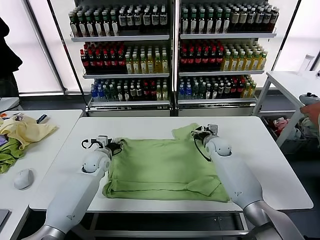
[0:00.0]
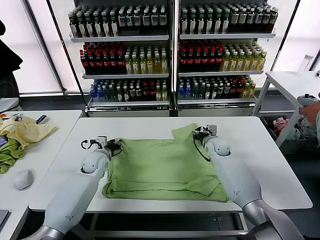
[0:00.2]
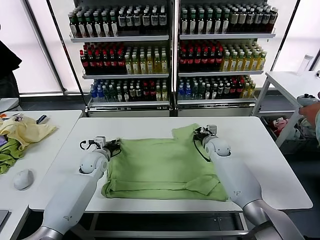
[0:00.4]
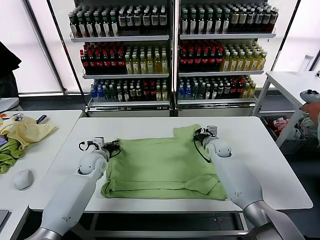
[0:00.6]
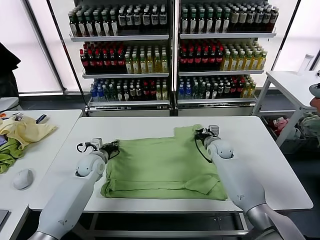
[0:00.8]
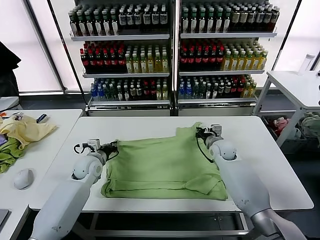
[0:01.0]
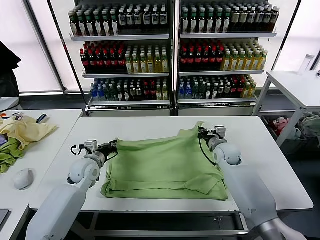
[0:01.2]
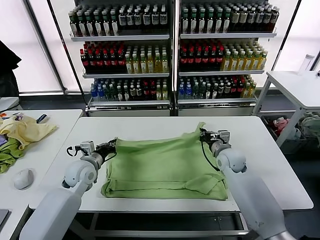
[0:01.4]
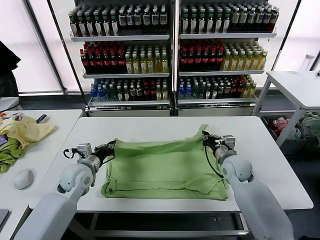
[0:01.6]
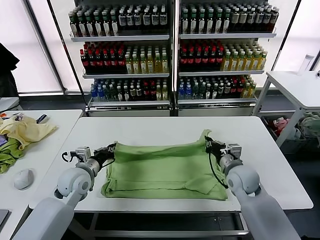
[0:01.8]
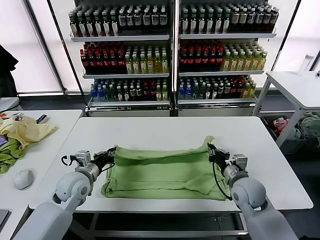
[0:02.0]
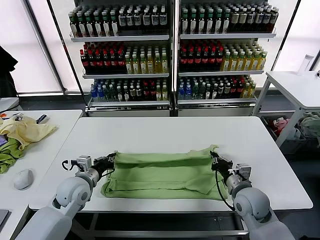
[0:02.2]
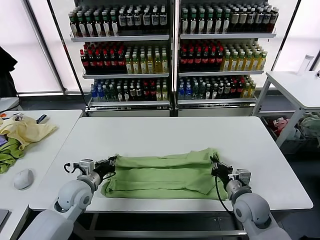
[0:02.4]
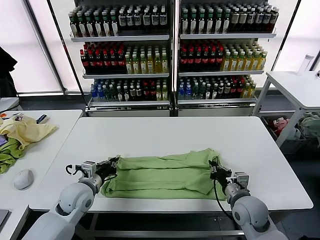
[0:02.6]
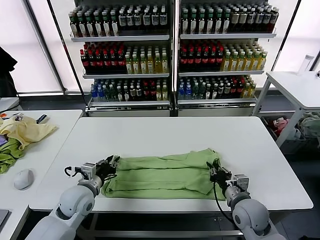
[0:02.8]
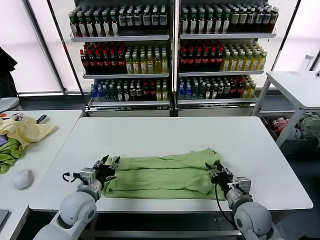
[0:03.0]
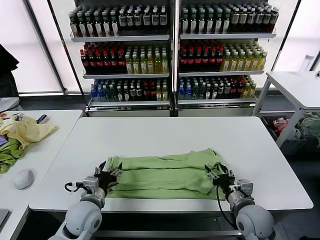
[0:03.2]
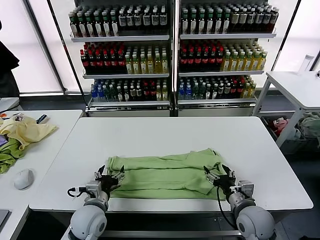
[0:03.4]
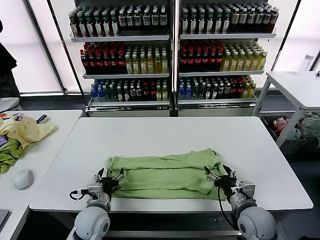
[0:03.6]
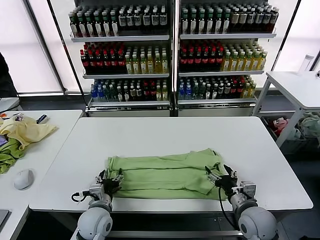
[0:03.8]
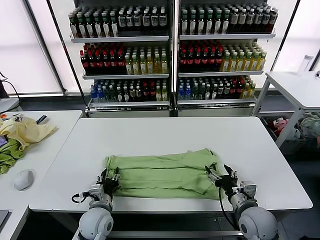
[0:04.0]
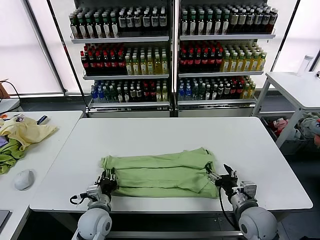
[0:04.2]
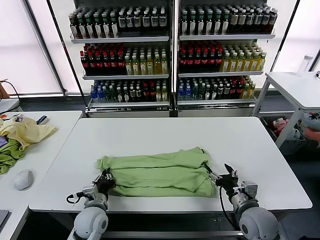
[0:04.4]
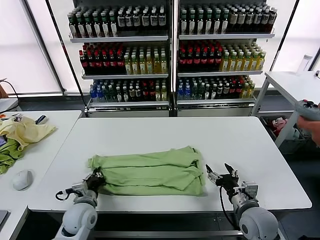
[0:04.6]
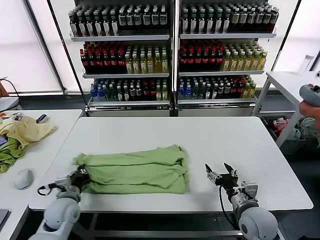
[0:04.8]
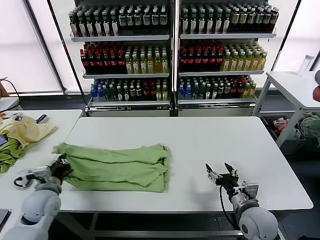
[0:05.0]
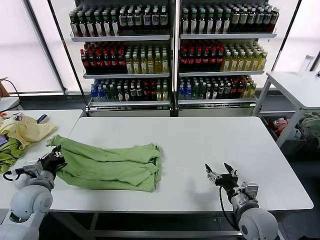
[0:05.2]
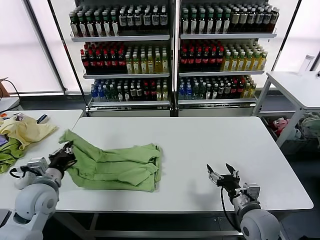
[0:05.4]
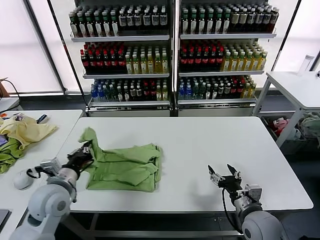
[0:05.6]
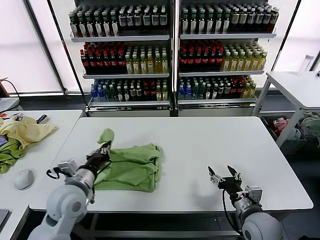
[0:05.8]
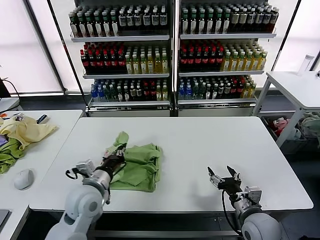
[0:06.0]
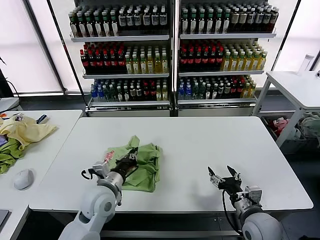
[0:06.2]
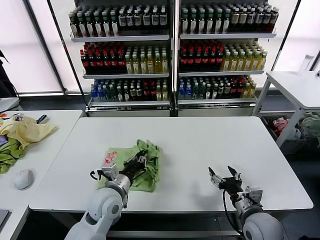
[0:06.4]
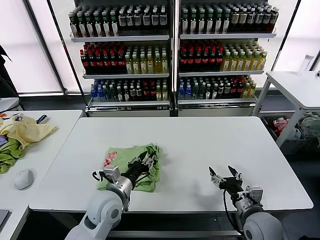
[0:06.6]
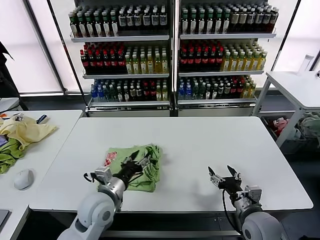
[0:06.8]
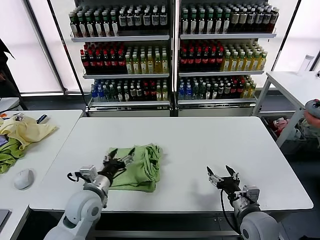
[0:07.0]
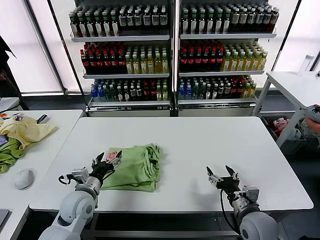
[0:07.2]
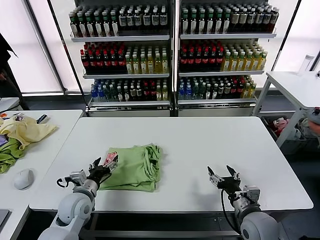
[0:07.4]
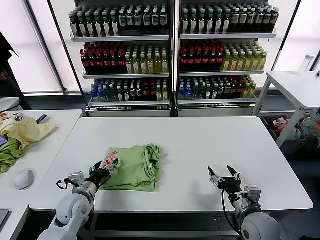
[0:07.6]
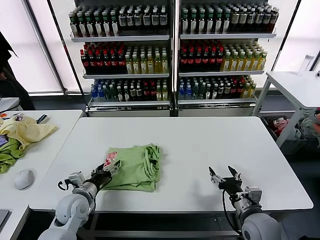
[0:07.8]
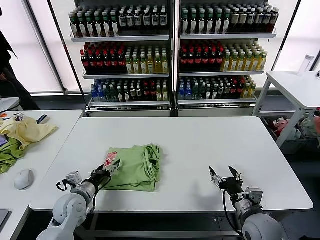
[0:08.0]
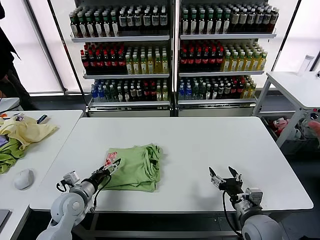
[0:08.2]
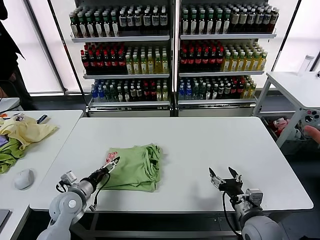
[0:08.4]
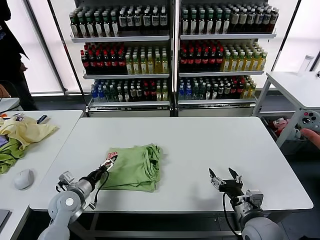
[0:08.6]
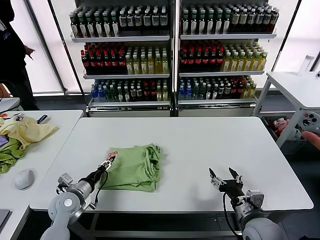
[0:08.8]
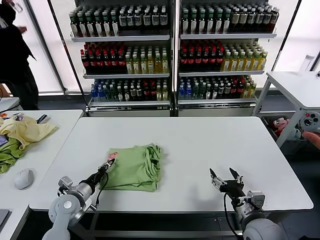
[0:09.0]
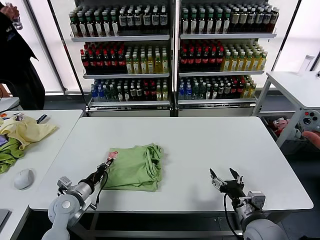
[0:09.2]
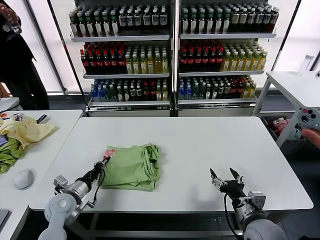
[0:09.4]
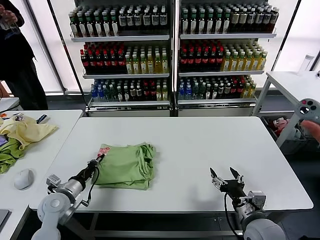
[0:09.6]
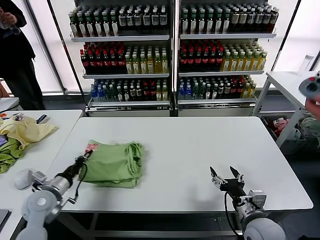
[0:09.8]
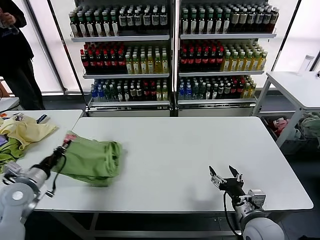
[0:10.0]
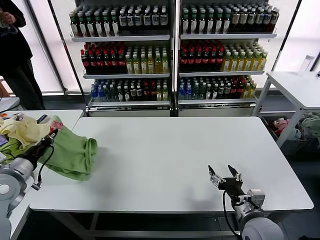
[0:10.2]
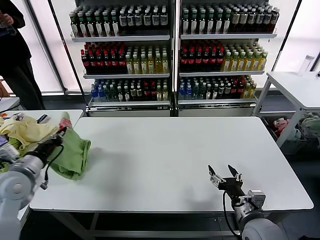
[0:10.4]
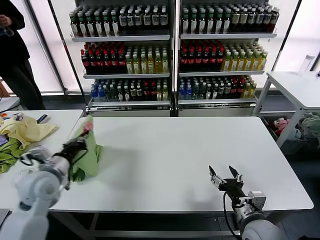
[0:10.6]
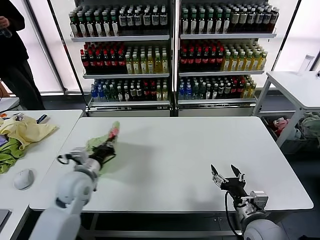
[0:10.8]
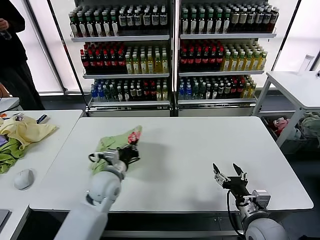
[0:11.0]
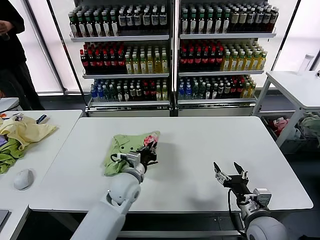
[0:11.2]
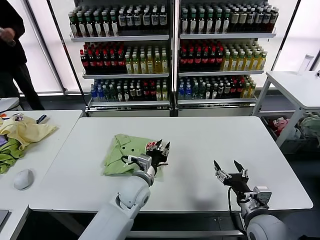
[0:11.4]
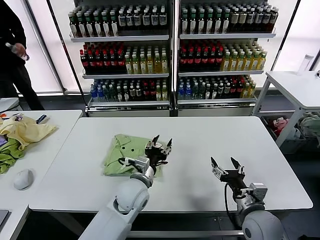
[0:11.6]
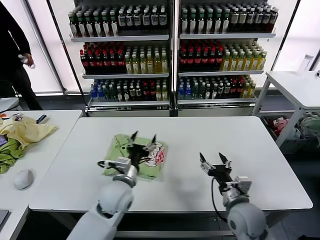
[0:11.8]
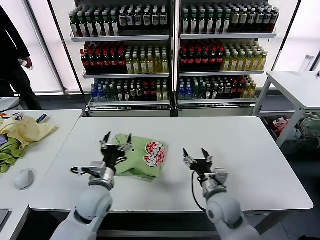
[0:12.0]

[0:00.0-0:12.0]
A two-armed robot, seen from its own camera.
Task of the whole recording: fold and organize the clothes.
Step, 0:00.6 to 0:02.8: use both grippers to drag the upper edge of the fabric backward and fold it over the lower edge.
Step, 0:03.0 to 0:04.2: use the left gripper to clamp the left edge of the fabric.
Step, 0:04.4 to 0:06.6: use the left gripper to drag the left edge of the fabric to the left and folds it over the right edge.
Step, 0:06.8 to 0:11.2: Flip the folded clothes over with left gripper.
0:00.0 to 0:01.6: The left gripper moves backward and upward, about 10 cm, and closes up. The right gripper goes about 15 cm backward, and closes its fingers.
0:01.6 to 0:03.0: The right gripper is displaced backward by approximately 15 cm, and opens its fingers. Meanwhile the left gripper travels backward by some 10 cm, and opens up.
0:03.0 to 0:04.4: The right gripper opens up. Meanwhile the left gripper travels downward by some 5 cm, and closes.
0:04.4 to 0:06.0: The left gripper is displaced upward by some 10 cm, and moves roughly 15 cm to the left and comes back.
0:06.0 to 0:07.6: The left gripper heads downward and to the left, covering some 10 cm, and opens.
0:07.6 to 0:09.0: The left gripper closes.
0:09.0 to 0:10.4: The left gripper moves upward and to the left, some 20 cm, and closes its fingers.
0:10.4 to 0:12.0: The left gripper shifts roughly 25 cm to the right, and opens its fingers. Meanwhile the right gripper goes about 10 cm to the left and forward.

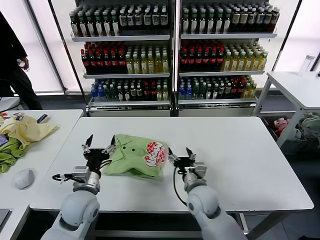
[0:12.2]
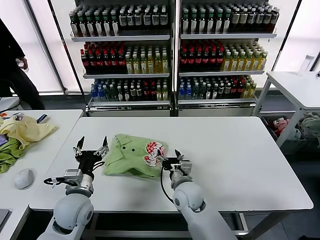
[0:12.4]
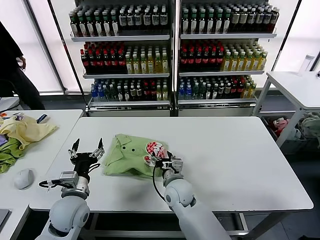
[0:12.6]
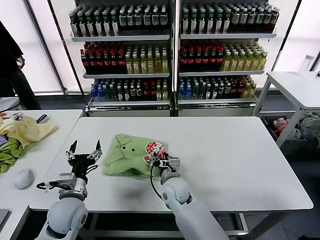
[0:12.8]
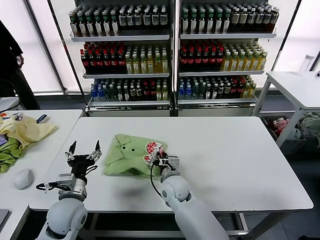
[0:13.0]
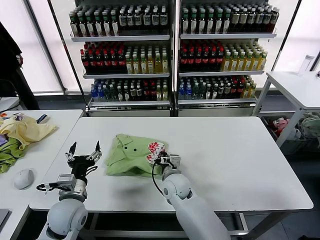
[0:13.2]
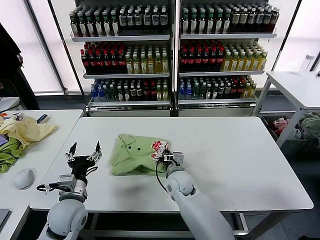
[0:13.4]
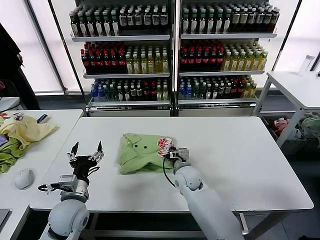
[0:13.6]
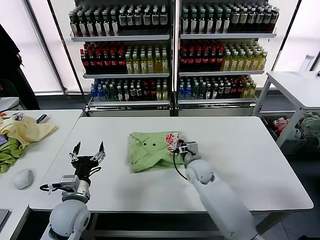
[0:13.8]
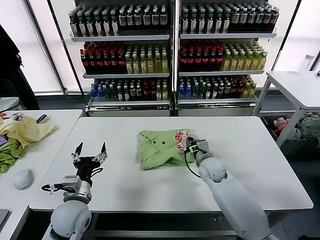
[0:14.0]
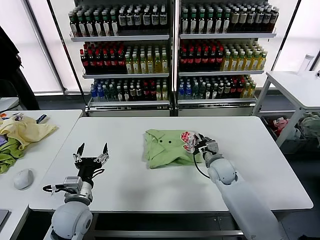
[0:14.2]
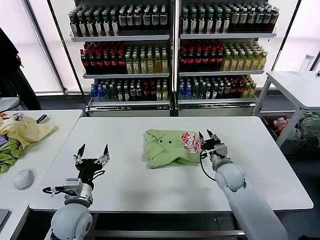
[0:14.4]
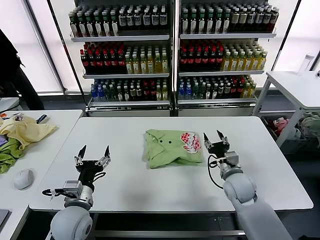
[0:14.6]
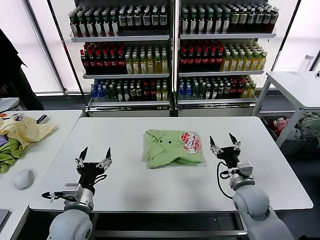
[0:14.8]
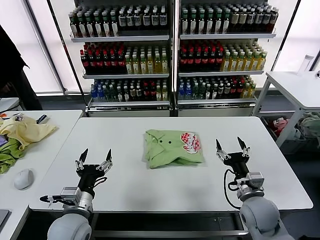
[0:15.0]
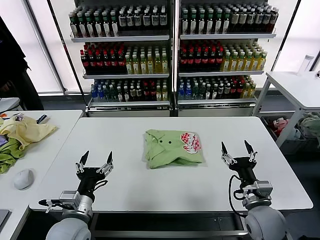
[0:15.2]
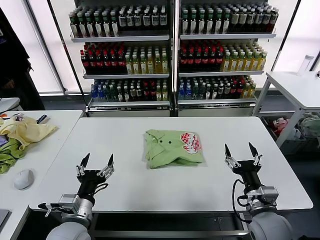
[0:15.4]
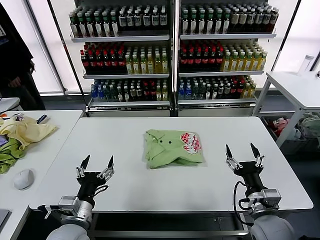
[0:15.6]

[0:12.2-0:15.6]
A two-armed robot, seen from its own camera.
Task of the whole recording: fold and organize the clothes.
Step, 0:12.2 to 0:14.2: Drag the clothes to the center of the table.
0:12.2 to 0:13.8: The right gripper is displaced forward by about 10 cm, and closes.
0:13.8 to 0:15.6: The left gripper goes roughly 5 cm backward. The right gripper shifts roughly 25 cm backward and to the right, and opens.

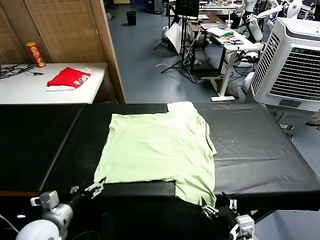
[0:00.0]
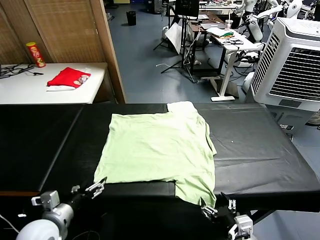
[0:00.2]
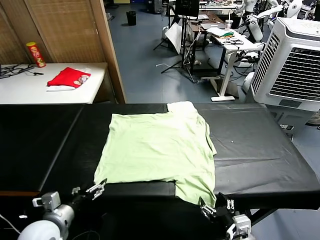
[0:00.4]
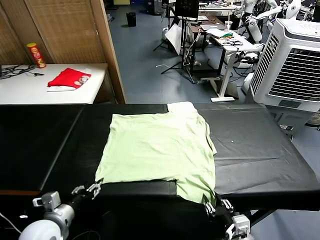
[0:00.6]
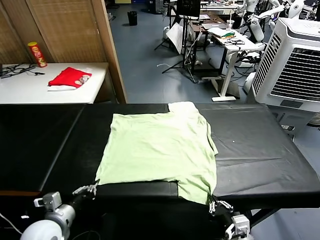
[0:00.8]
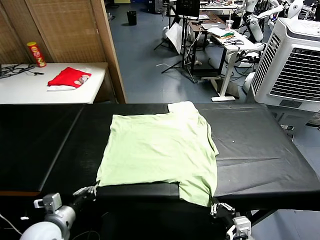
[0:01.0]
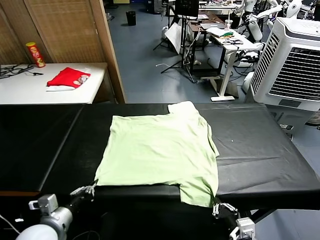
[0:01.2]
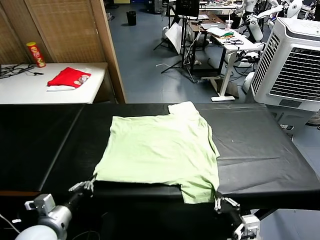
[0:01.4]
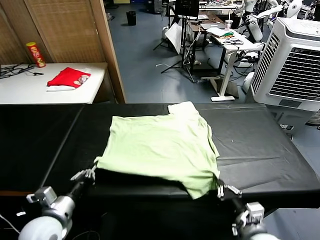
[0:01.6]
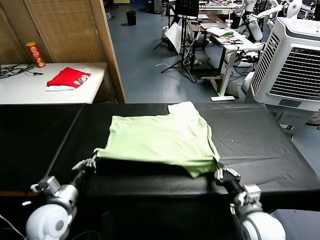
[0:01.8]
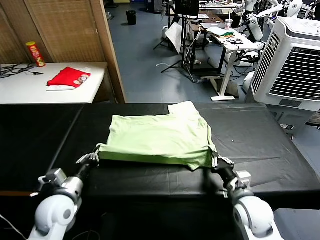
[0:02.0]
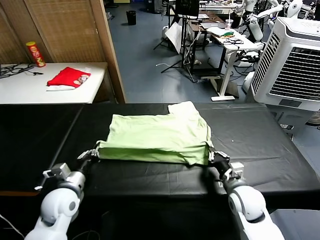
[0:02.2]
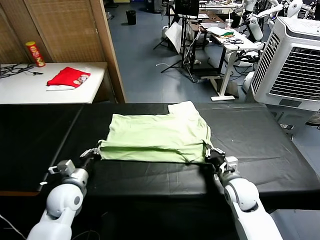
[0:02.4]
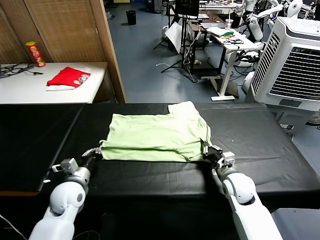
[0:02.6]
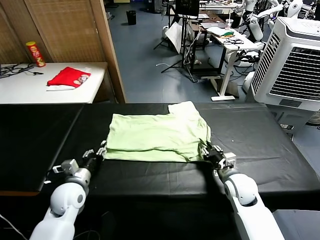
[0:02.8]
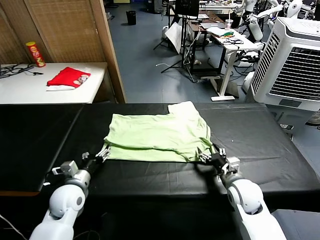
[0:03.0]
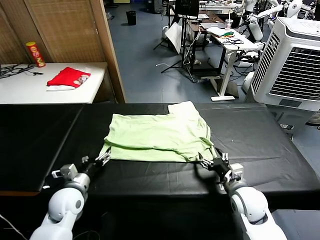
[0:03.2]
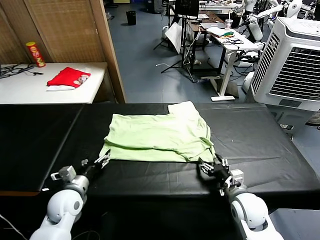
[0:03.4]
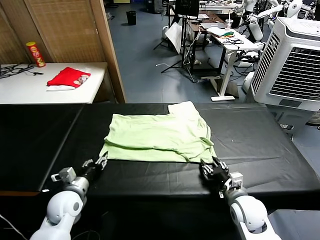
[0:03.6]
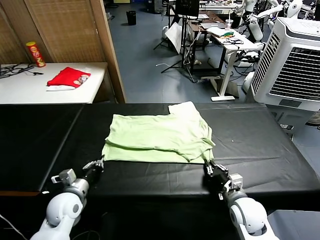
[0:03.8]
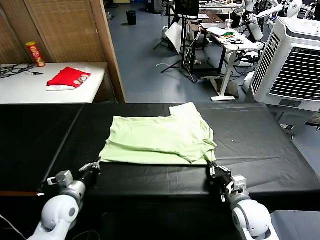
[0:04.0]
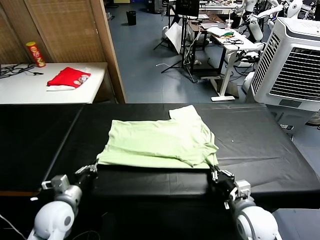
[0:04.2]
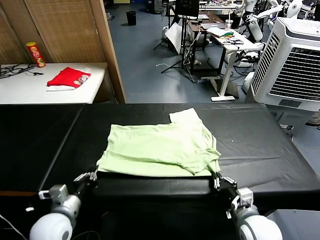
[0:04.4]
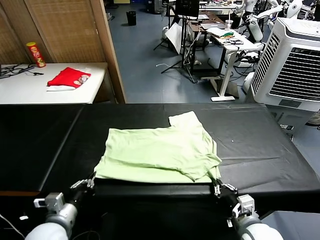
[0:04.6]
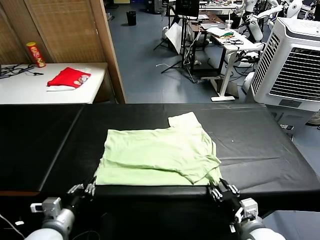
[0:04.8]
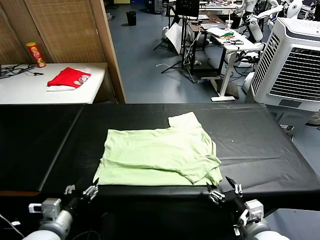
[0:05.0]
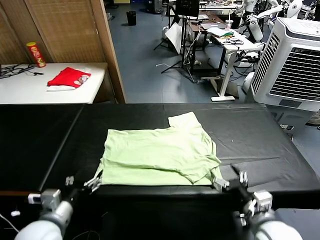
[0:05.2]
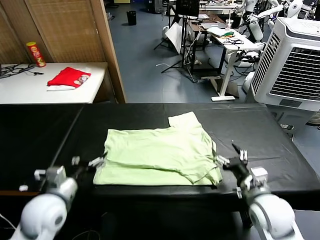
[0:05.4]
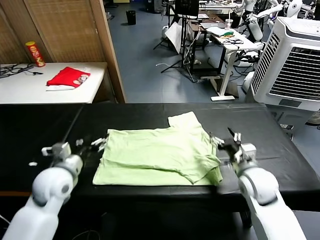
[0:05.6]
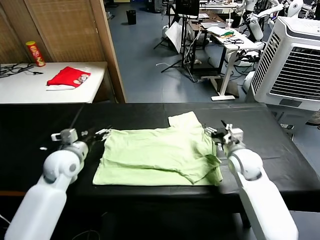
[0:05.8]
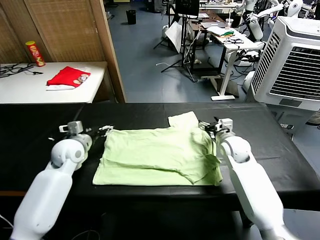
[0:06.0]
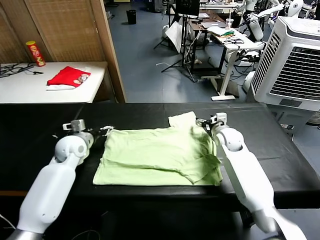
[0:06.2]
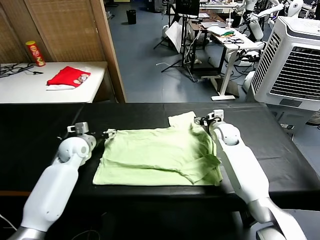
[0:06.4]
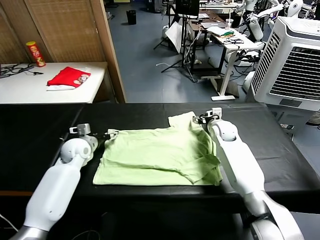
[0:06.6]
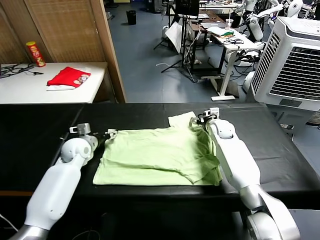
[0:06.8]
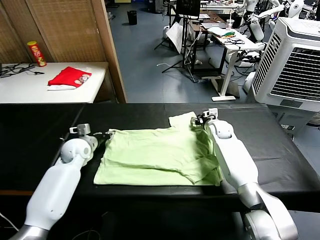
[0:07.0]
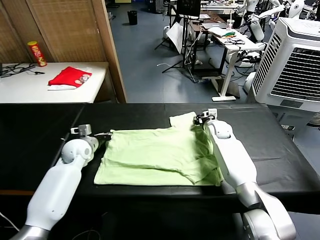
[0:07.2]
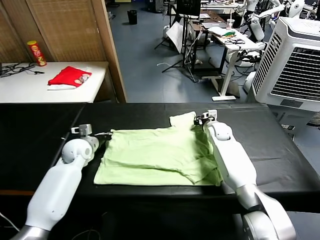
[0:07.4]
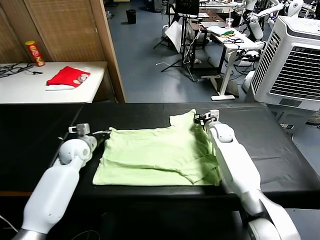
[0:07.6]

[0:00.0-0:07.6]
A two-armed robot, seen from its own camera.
Task of the whole recording: fold and organize the clothes.
Step, 0:00.0 to 0:01.0: use both grippers simultaneously to clamp the lower edge of the clothing fabric.
Step, 0:01.2 to 0:03.0: use both grippers to drag the lower edge of the fabric forward and fold it over the upper edge.
Step, 0:03.2 to 0:05.0: Drag the clothes downward with both gripper.
Step, 0:05.2 to 0:07.2: use both grippers simultaneously to clamp the upper edge of the clothing fabric.
0:01.6 to 0:03.0: The right gripper goes roughly 5 cm forward, and opens its fingers. The left gripper heads forward and downward, covering approximately 10 cm, and opens up.
0:03.0 to 0:04.6: Both grippers move backward, about 10 cm. The left gripper closes up, while the right gripper closes.
0:04.6 to 0:06.0: Both grippers move forward, approximately 30 cm. The left gripper opens up. Meanwhile the right gripper opens its fingers.
0:06.0 to 0:07.6: The right gripper closes up; the left gripper closes up.
